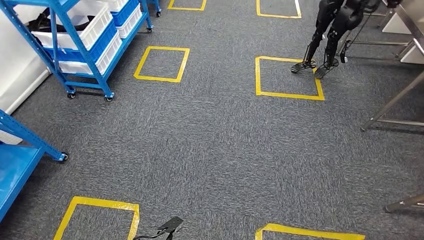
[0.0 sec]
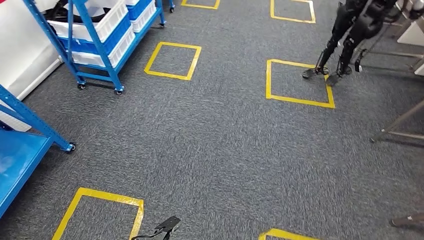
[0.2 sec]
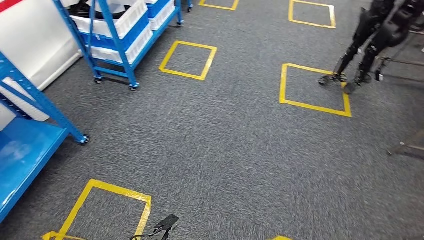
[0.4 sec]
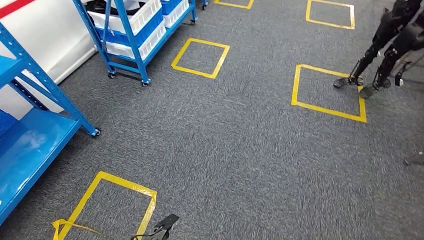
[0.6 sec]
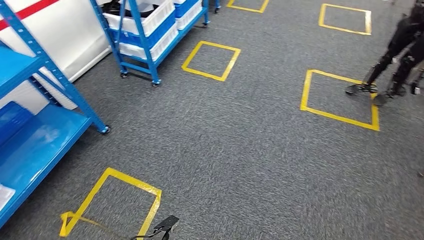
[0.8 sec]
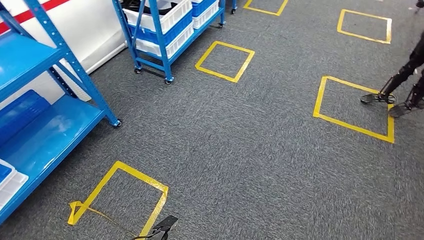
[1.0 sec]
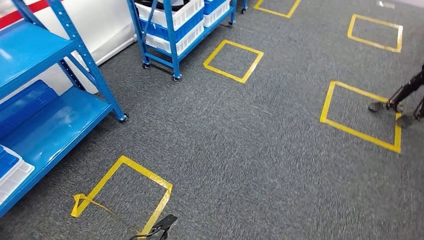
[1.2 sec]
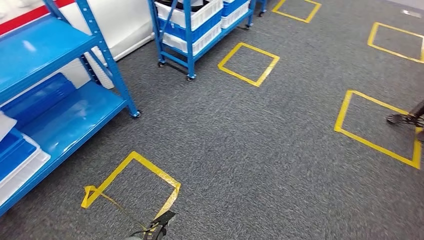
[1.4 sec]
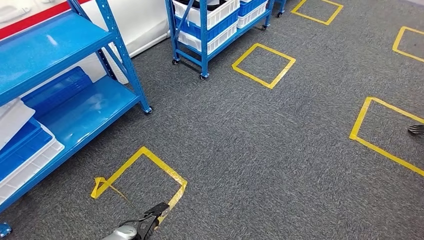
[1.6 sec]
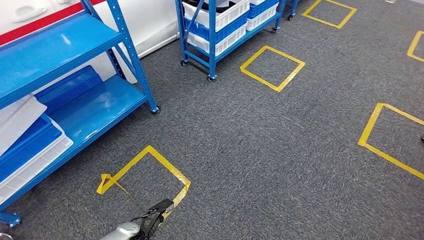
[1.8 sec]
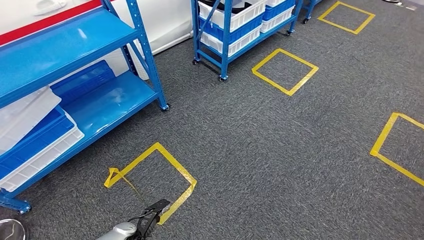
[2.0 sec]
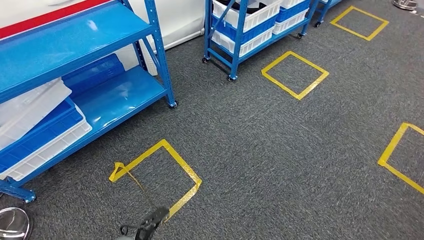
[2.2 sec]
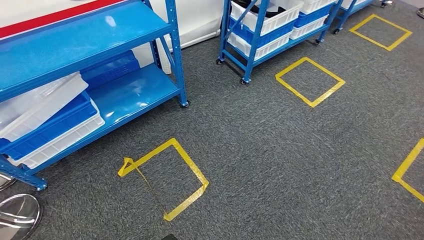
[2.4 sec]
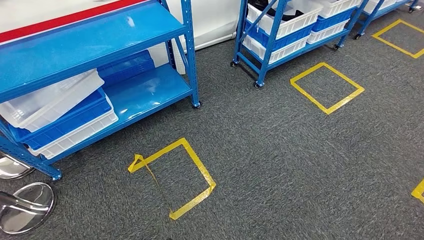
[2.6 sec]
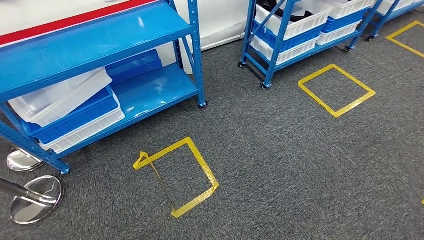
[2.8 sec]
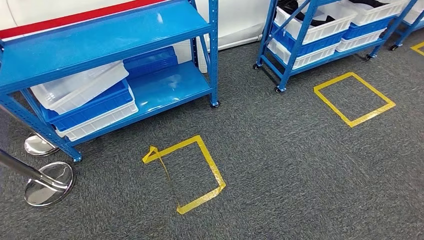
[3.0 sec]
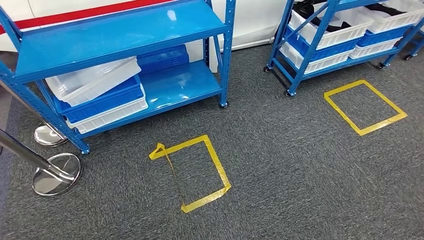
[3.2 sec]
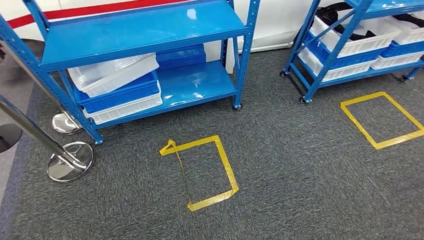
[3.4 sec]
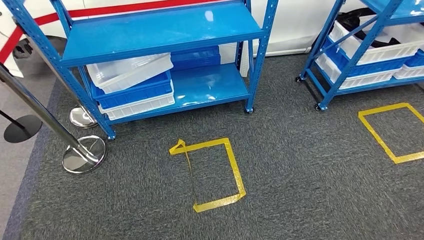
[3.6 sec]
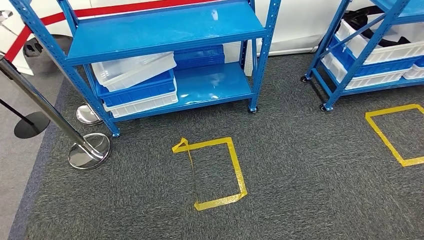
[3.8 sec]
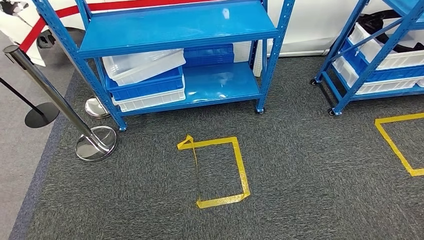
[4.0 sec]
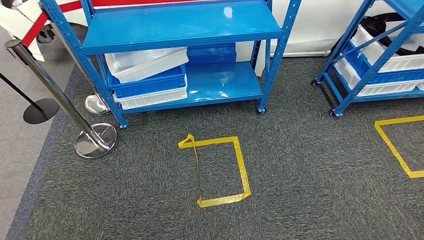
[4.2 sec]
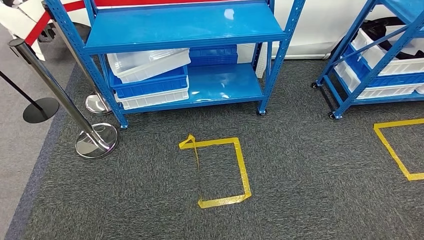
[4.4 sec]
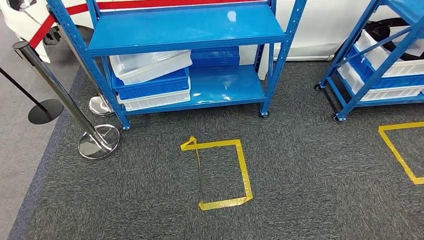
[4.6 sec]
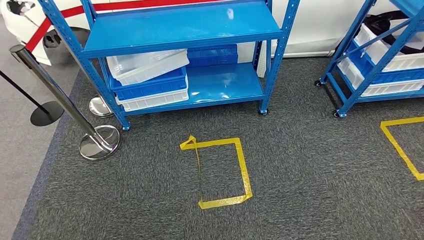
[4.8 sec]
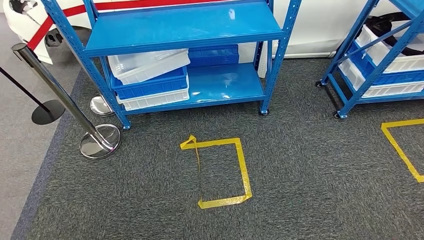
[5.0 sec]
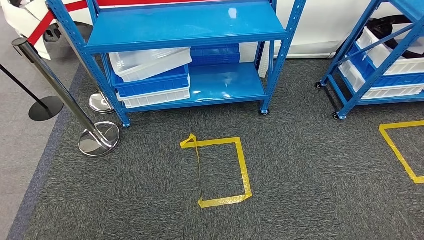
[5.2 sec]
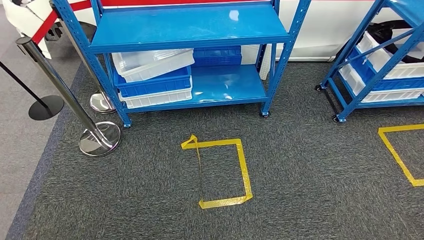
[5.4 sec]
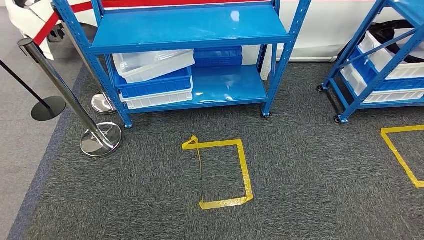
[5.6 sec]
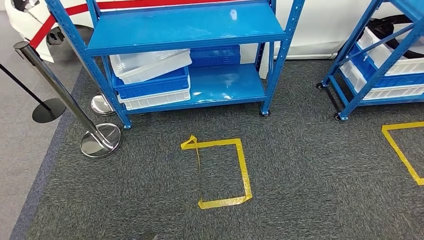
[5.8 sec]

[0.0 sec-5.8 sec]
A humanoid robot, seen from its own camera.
Step, 0.0 sec to 5.8 sec: Move to the initial position of the shelf.
4.4 sec to 5.8 sec: The right hand travels backward by some 10 cm.
